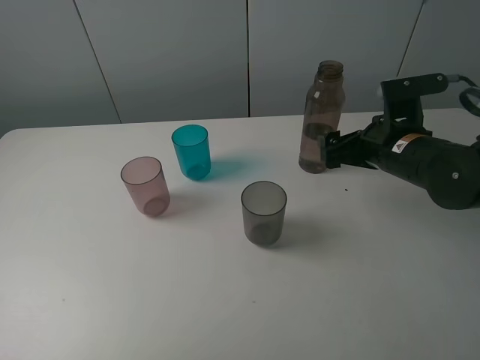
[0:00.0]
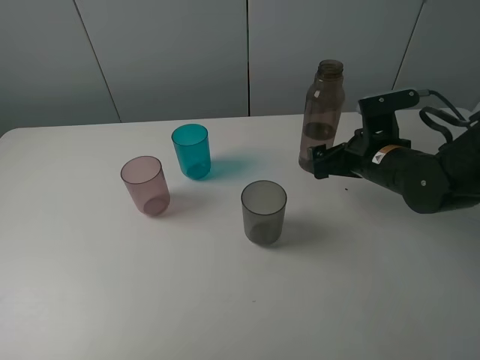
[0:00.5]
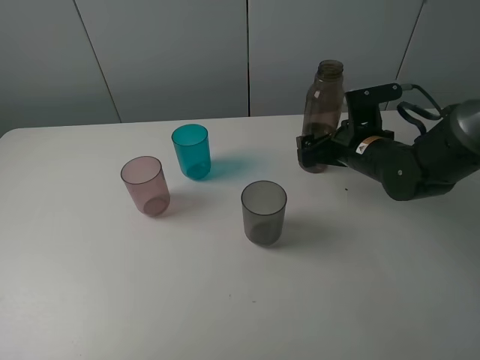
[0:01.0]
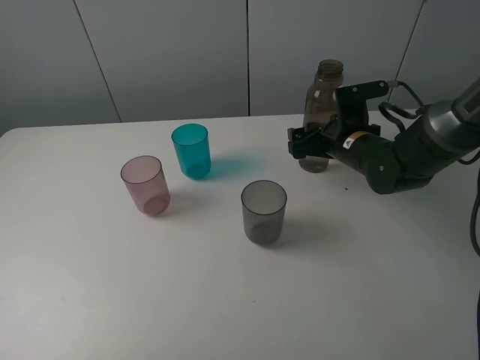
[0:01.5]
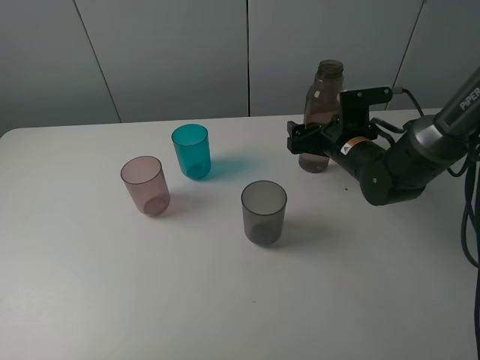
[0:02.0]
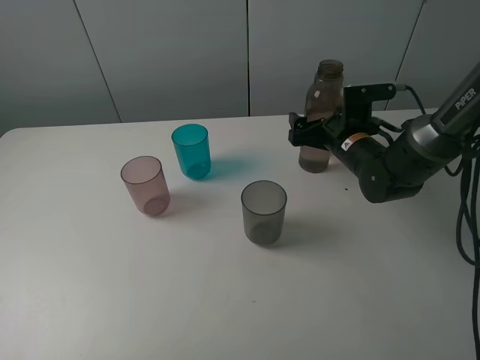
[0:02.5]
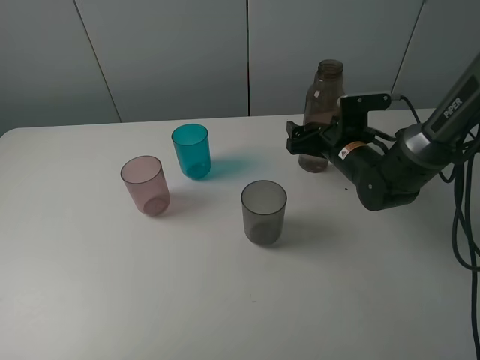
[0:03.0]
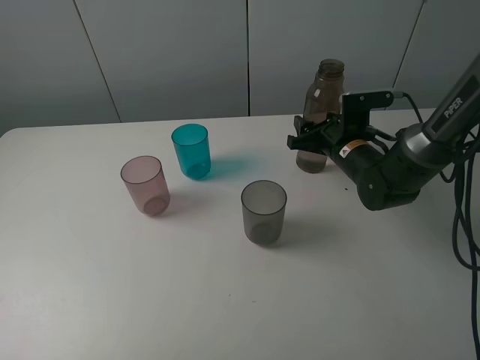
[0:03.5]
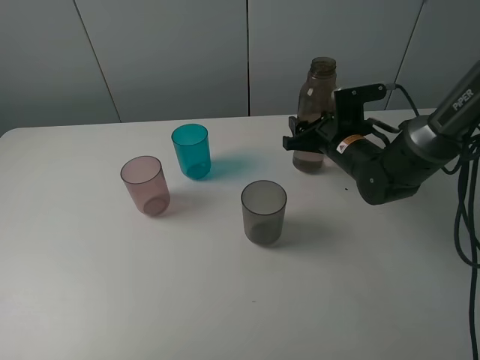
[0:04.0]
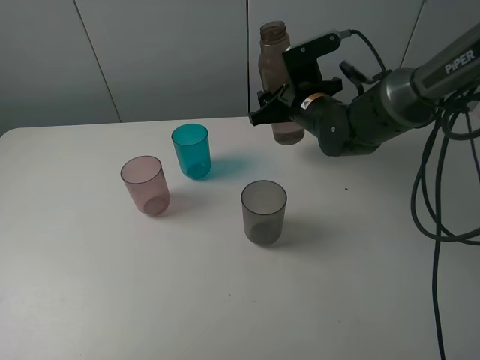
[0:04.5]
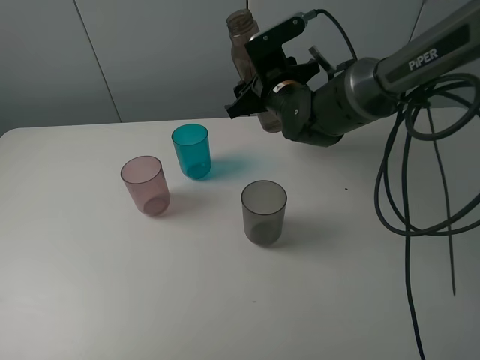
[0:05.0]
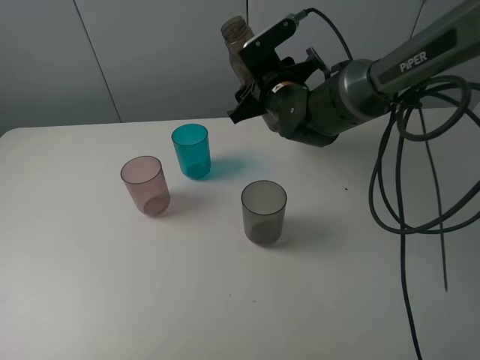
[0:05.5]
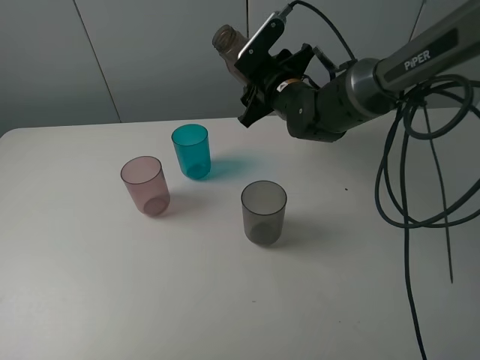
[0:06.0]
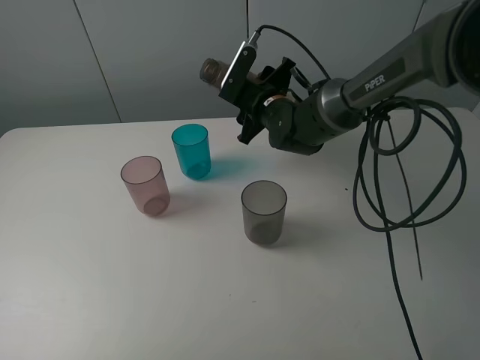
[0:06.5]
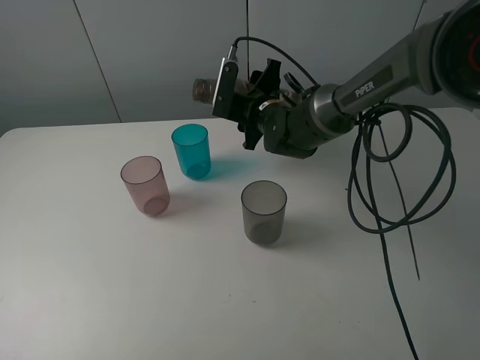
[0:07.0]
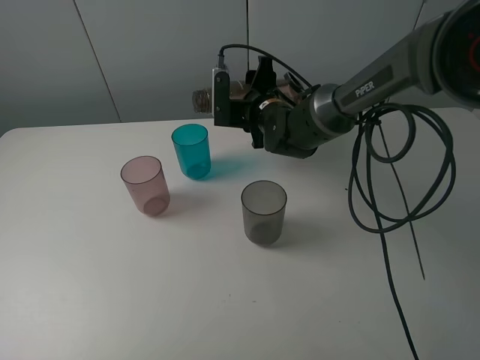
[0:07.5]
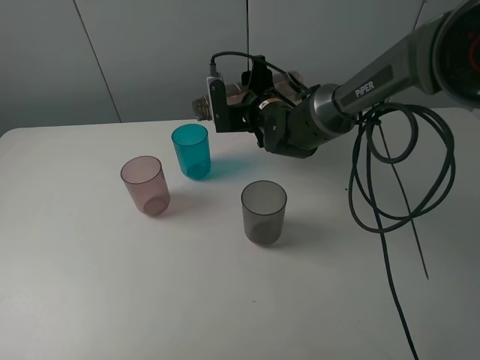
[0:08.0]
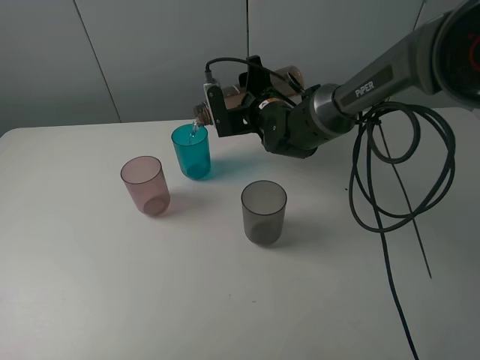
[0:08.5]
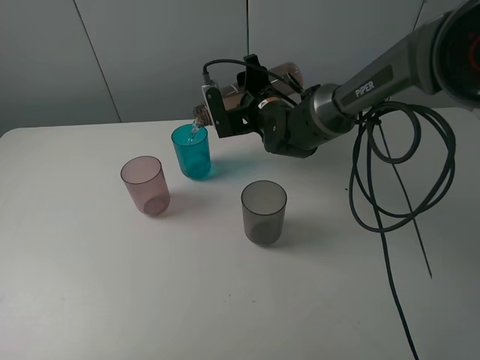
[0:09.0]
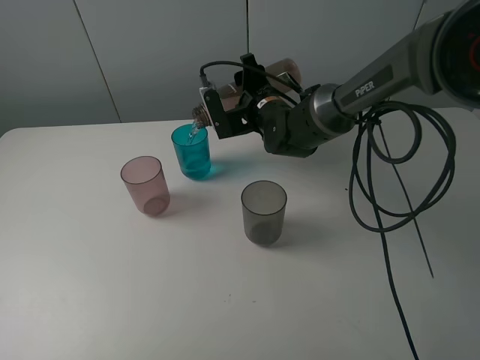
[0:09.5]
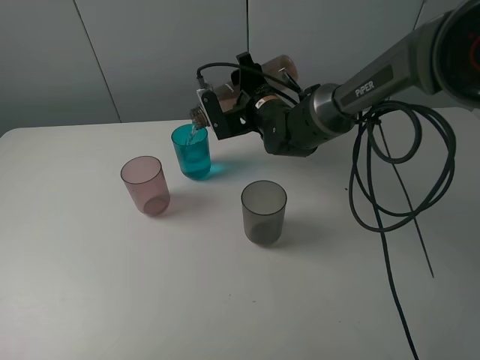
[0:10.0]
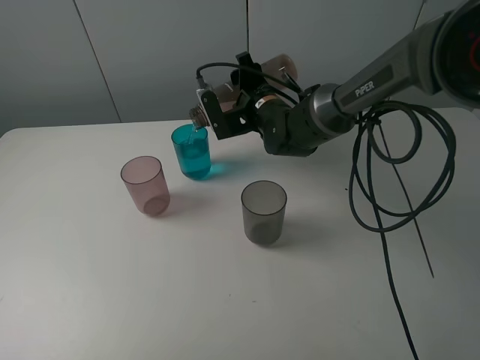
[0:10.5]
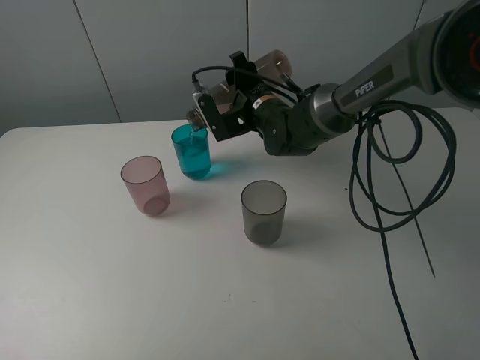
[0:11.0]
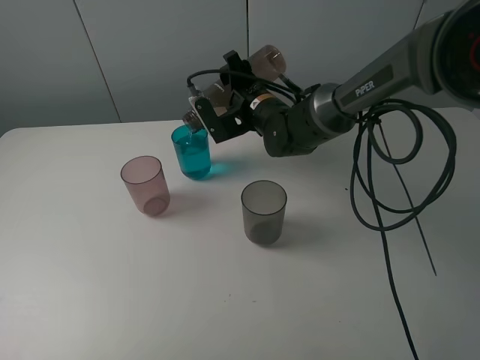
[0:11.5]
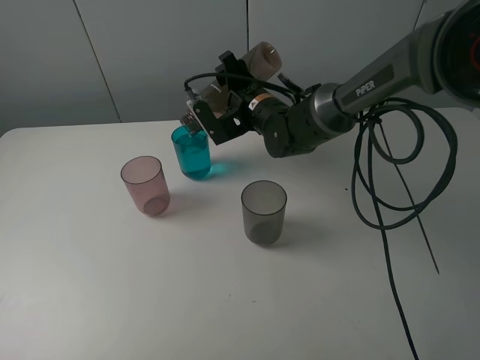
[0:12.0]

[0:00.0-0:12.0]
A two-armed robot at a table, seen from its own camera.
Task of the whole recording: pick up the bottle filled with water and pour water into the middle cup of the three cups.
Step, 0:00.0 to 0:03.5: Grasp the brown bottle with the right gripper.
0:00.0 to 0:02.0: The right gripper moves forward and downward, some 10 cm.
0:02.0 to 0:04.0: The right gripper closes its fingers.
0:04.0 to 0:06.0: The right gripper goes about 10 cm to the left and upward.
0:08.0 to 0:10.0: There are only small adjustments of the grippers.
0:10.0 to 0:12.0: There are only small adjustments of the grippers.

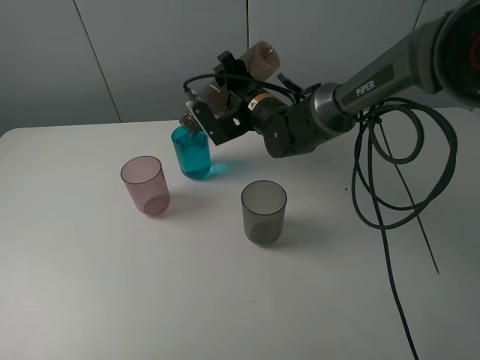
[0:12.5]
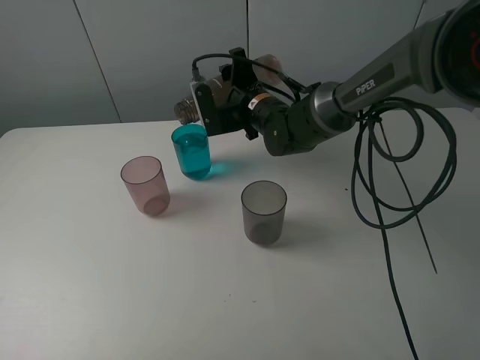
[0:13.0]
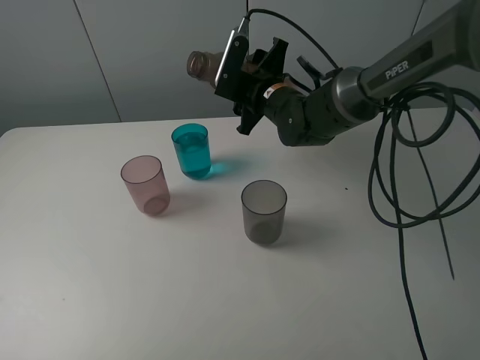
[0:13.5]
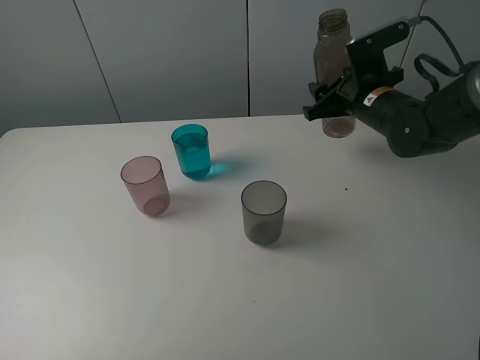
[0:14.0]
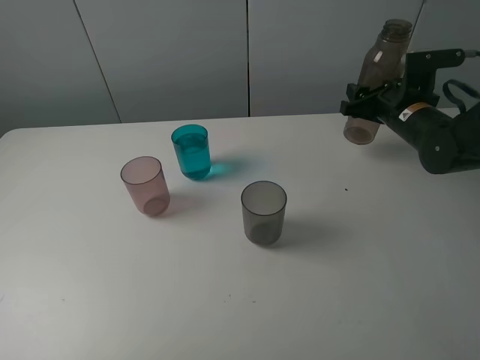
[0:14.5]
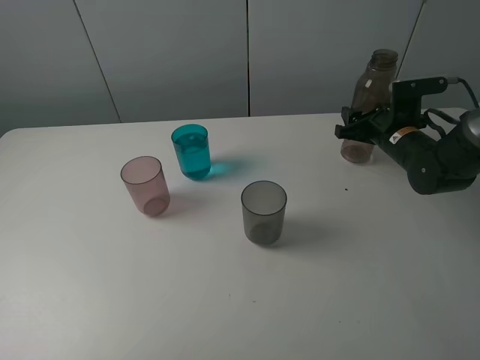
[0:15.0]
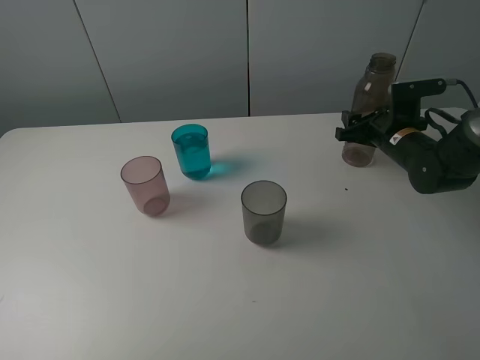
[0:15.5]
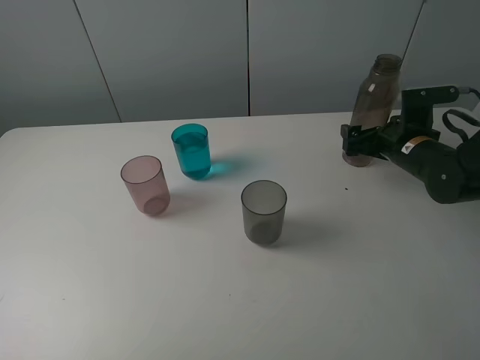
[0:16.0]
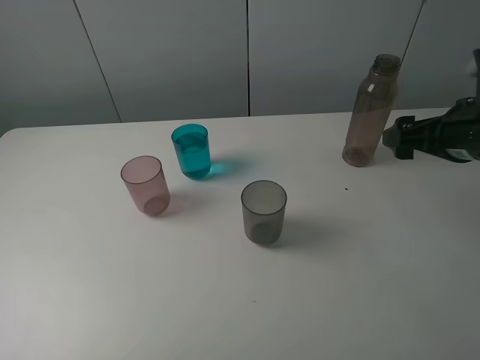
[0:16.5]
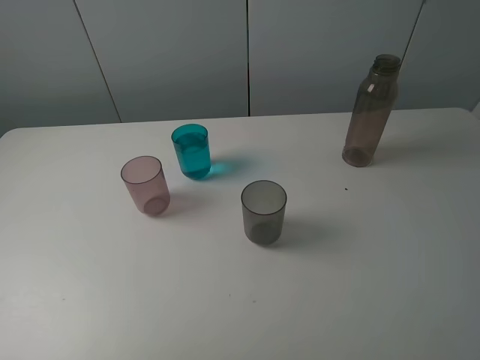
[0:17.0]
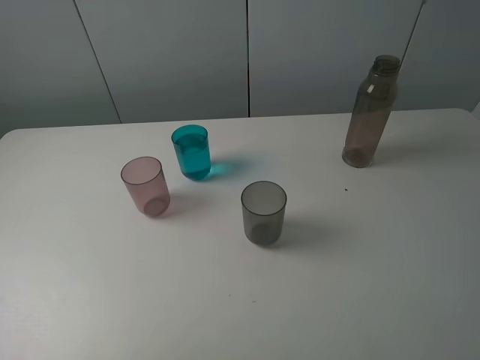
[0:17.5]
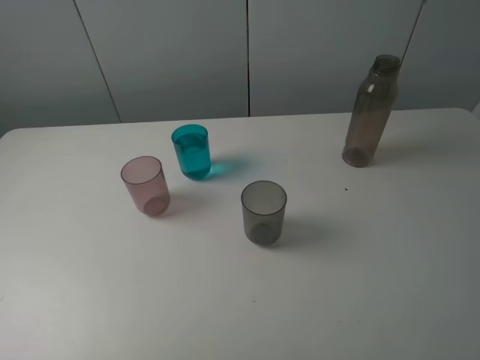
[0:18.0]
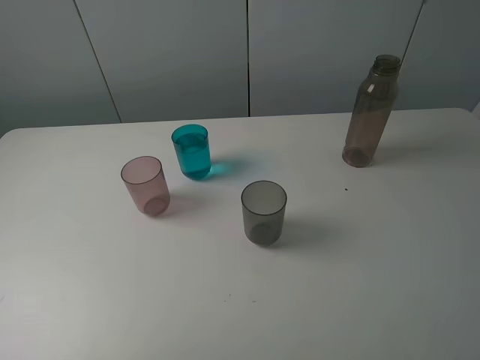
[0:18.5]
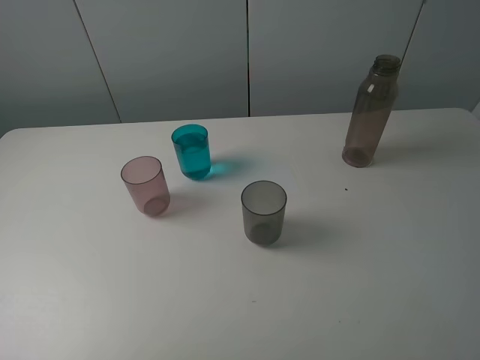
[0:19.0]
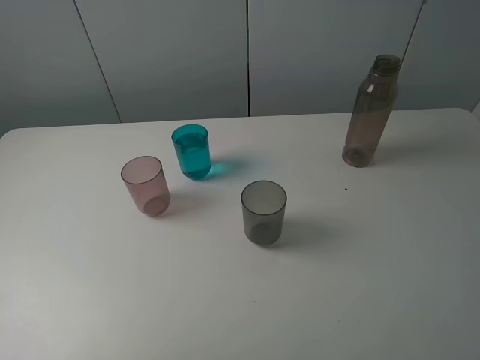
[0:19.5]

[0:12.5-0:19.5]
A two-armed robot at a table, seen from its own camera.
Task of the whole recording: pick up the bottle filled with water and pour water into the middle cup of the three cups.
Step, 0:13.5 to 0:16.0: Place the brown bottle with the right gripper.
0:12.5 to 0:14.5: The right gripper heads to the right, covering approximately 20 cm.
0:14.5 to 0:16.0: The right gripper moves about 5 cm, and opens.
0:16.0 to 0:17.5: The right gripper heads backward and upward, covering roughly 40 cm.
